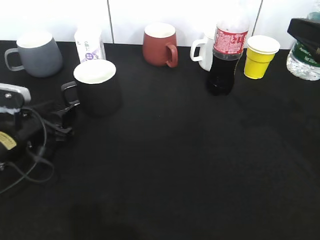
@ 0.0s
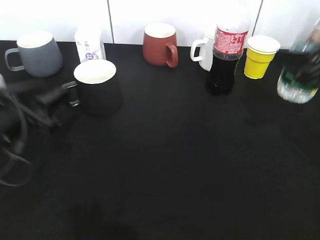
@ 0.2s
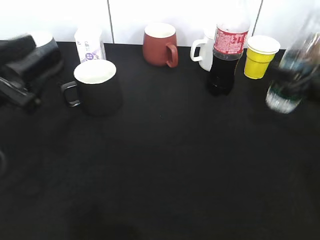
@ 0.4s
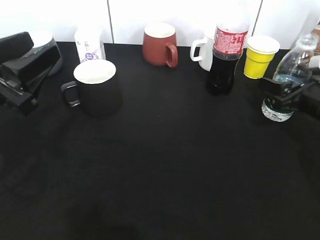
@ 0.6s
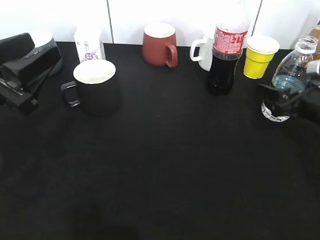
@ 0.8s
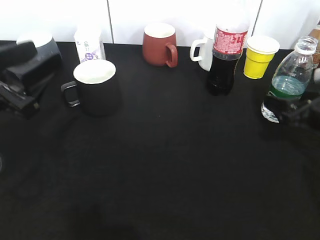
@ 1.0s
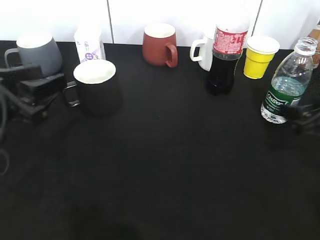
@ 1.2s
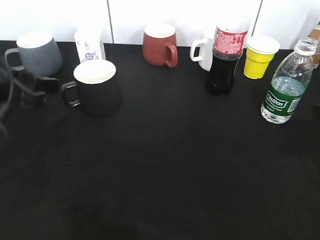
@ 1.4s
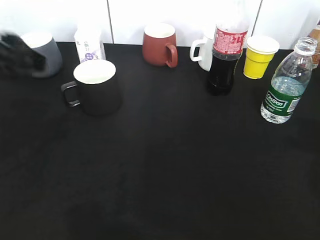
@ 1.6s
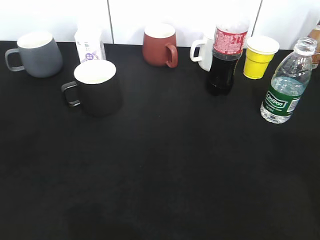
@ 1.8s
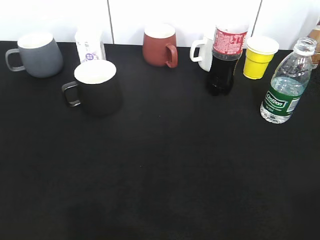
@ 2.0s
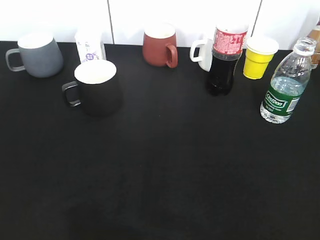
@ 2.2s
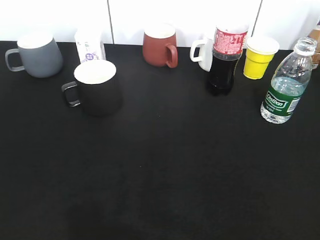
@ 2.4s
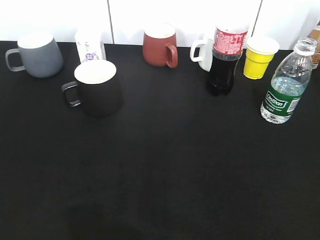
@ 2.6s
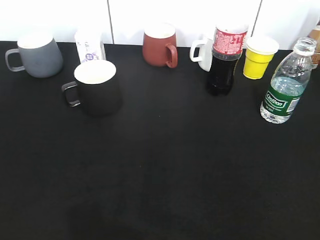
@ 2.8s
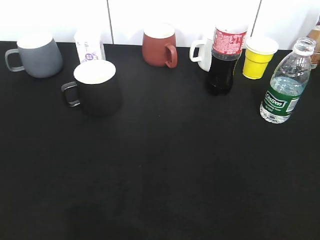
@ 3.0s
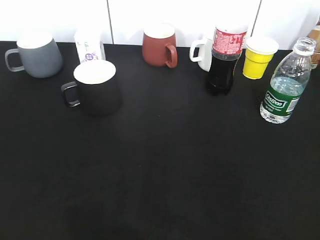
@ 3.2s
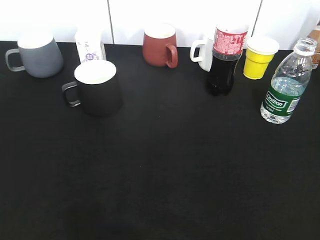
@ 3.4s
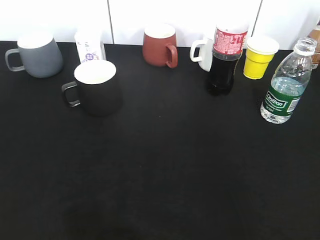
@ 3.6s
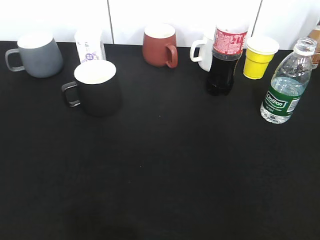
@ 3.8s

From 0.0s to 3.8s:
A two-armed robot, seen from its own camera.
Step, from 0.0s to 1.0s: Place the water bottle on the table with right gripper.
From 0.0s to 1.2s: The right gripper travels downward by approximately 10 cm, and opens up. The left gripper heads upward, covering approximately 10 cm.
From 1.2s to 2.6s: The right gripper is displaced backward and upward by roughly 30 cm, and closes up, while the left gripper heads backward and to the left, covering approximately 25 cm.
